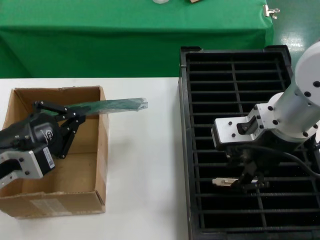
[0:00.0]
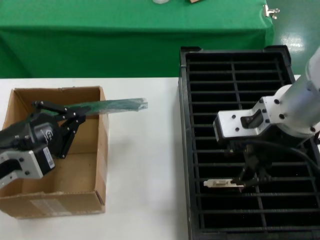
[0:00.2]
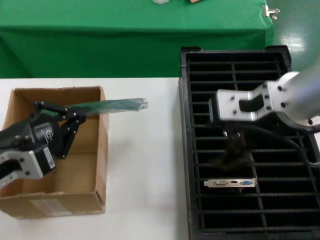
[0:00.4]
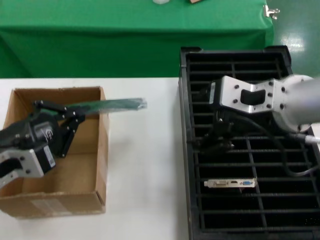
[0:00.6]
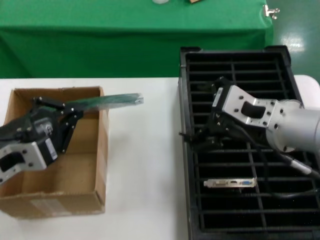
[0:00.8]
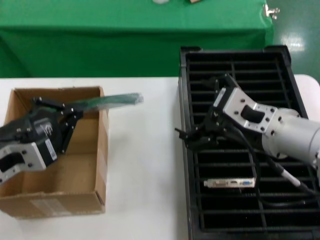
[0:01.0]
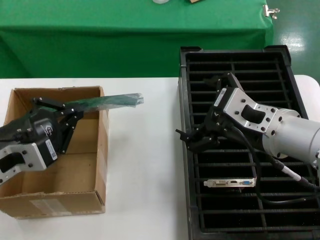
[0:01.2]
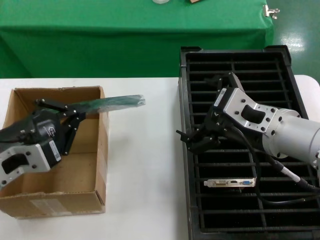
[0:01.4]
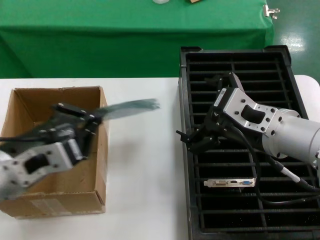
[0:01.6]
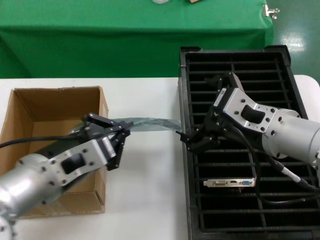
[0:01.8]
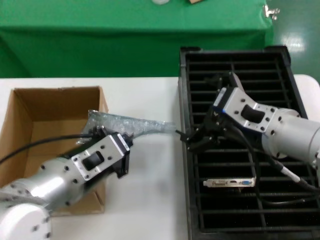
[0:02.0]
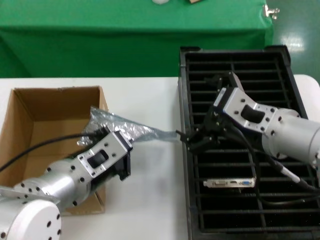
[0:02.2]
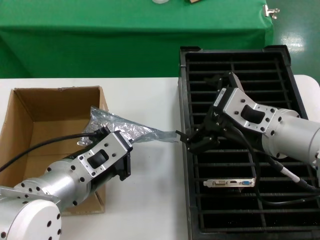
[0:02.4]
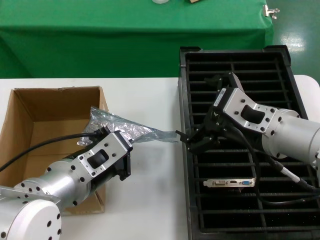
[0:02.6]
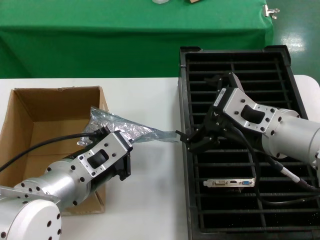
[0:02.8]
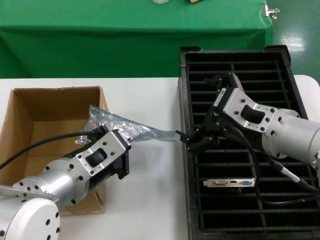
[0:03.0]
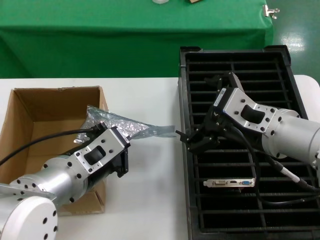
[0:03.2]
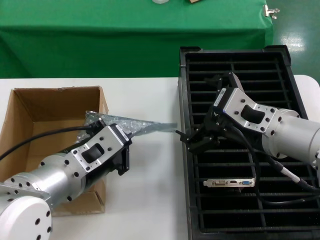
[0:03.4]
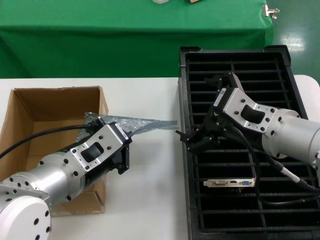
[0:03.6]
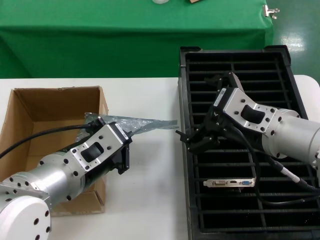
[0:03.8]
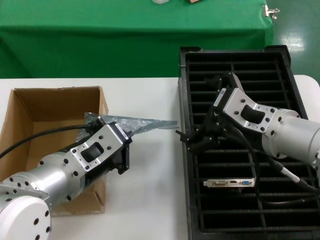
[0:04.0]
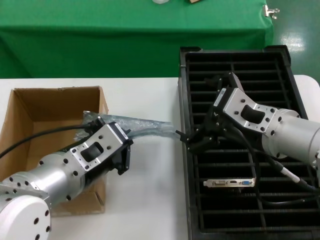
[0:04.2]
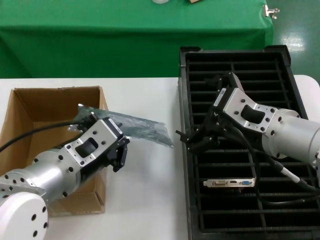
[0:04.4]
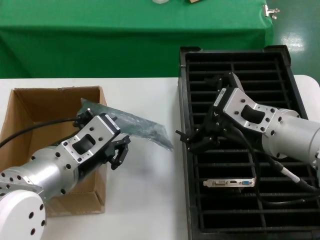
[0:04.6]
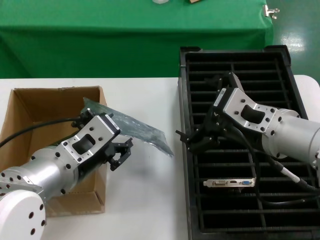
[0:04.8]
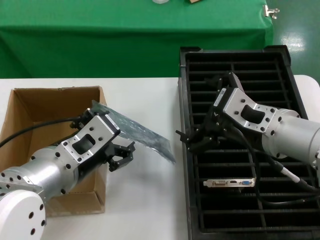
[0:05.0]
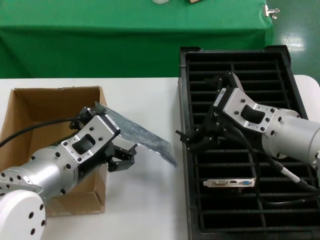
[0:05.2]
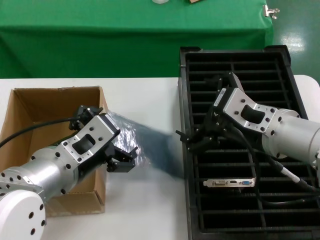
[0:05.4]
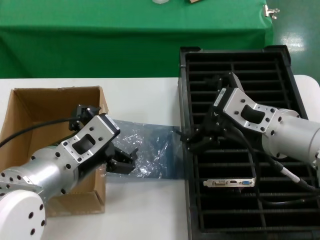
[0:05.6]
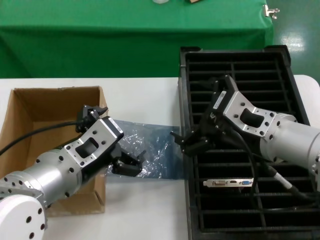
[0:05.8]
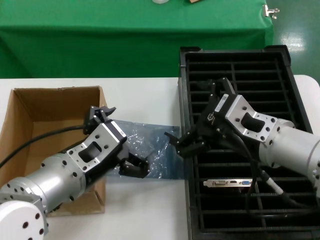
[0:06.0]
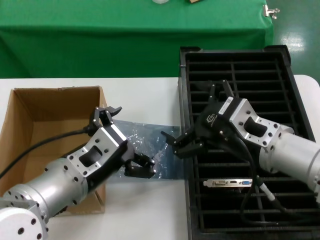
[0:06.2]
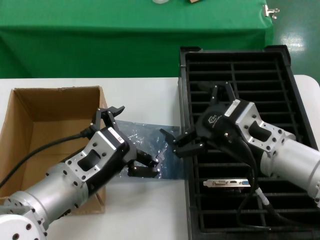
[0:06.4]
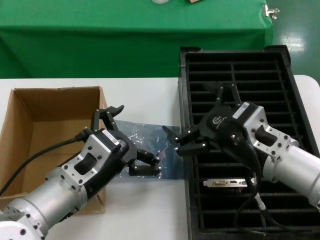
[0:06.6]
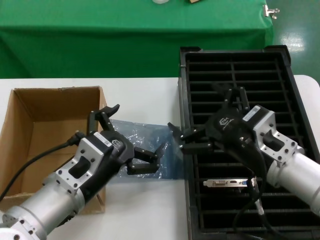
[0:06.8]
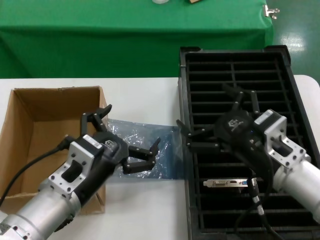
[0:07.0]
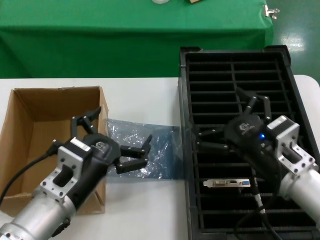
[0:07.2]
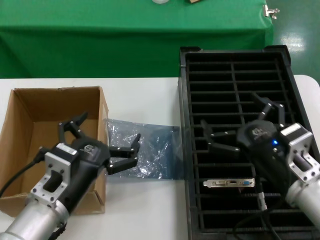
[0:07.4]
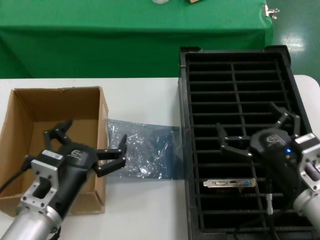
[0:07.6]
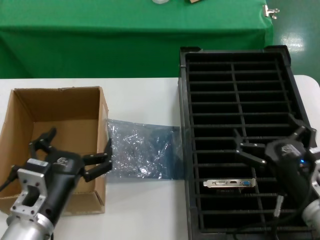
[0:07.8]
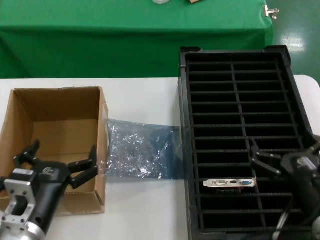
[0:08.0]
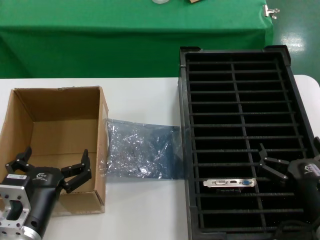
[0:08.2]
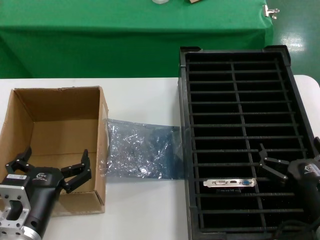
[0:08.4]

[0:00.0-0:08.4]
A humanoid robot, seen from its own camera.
Task of the whole recording: take out graphics card from box remove packaging put into black container.
Step, 0:00.2 to 0:05.4: Place the down the bag.
0:00.0 to 0:01.4: The right hand goes roughly 10 cm downward.
0:01.4 to 0:02.8: The left hand heads to the right, covering roughly 10 cm.
0:02.8 to 0:04.2: The hands stay close to where they were, moving slightly.
0:04.2 to 0:05.6: Both hands stay about where they are.
0:05.6 to 0:07.0: Both hands travel together downward, roughly 10 cm.
0:07.0 to 0:08.4: The left hand is displaced downward by roughly 10 cm. The right hand travels downward, to the right and backward by roughly 15 cm.
